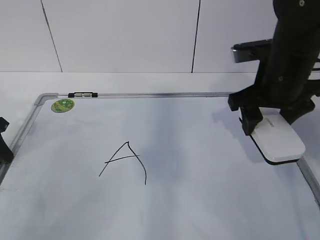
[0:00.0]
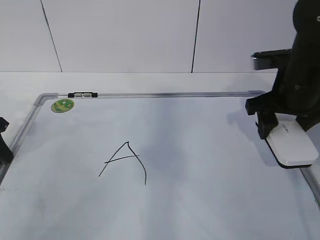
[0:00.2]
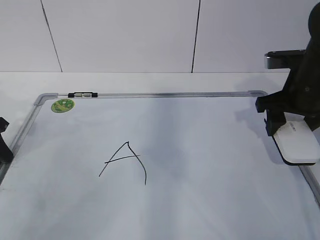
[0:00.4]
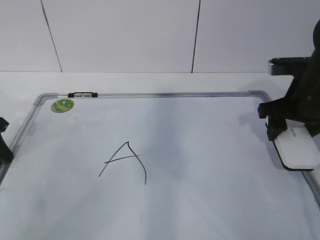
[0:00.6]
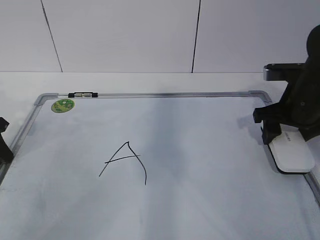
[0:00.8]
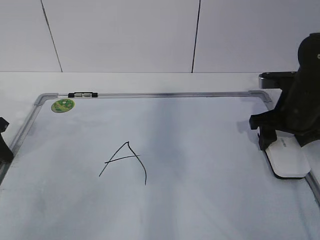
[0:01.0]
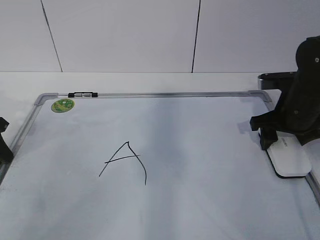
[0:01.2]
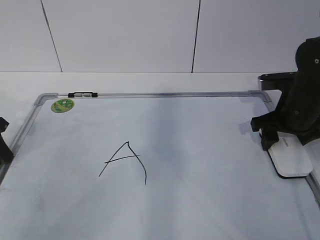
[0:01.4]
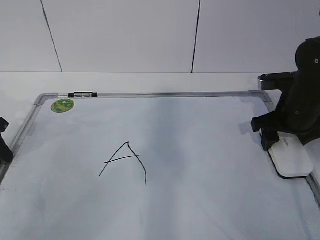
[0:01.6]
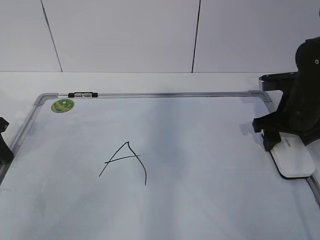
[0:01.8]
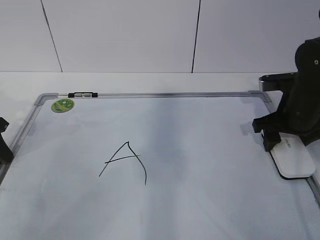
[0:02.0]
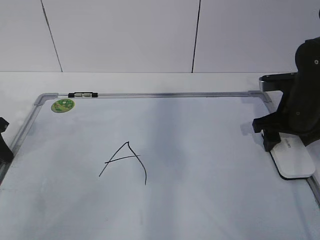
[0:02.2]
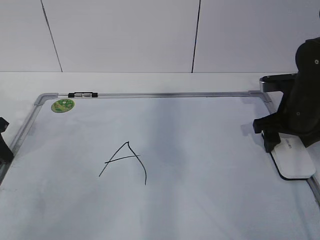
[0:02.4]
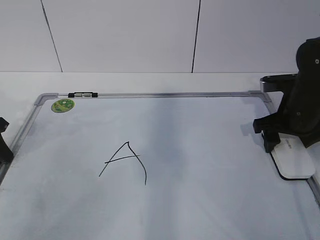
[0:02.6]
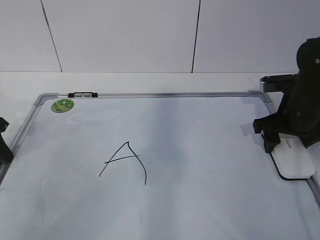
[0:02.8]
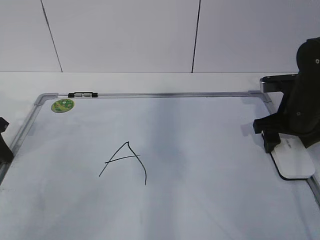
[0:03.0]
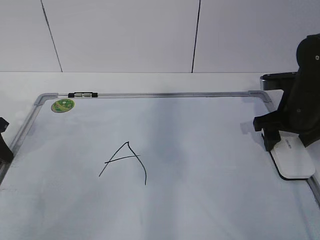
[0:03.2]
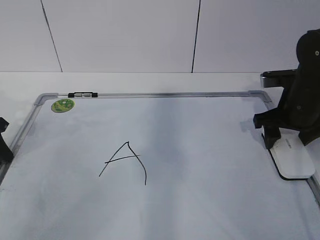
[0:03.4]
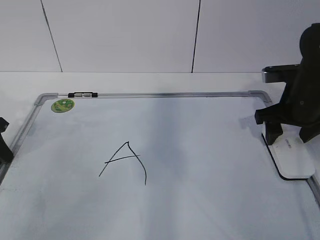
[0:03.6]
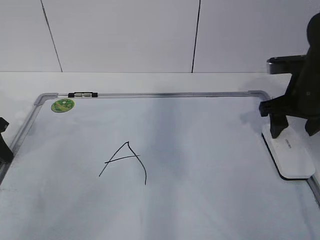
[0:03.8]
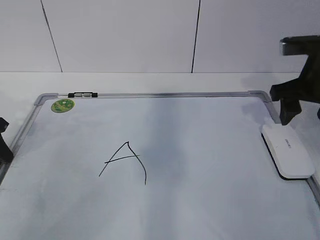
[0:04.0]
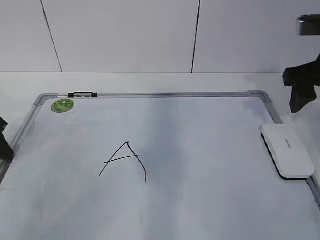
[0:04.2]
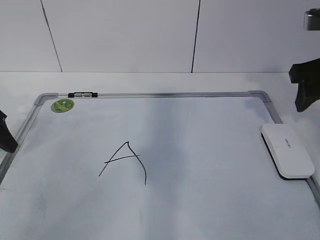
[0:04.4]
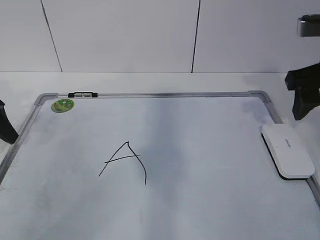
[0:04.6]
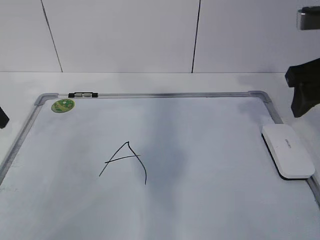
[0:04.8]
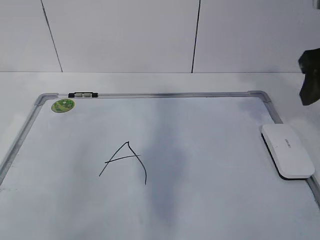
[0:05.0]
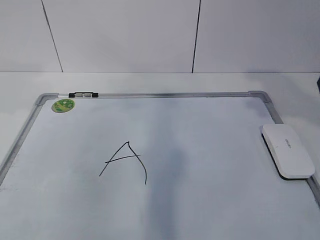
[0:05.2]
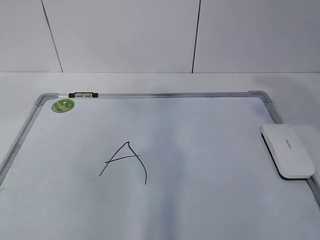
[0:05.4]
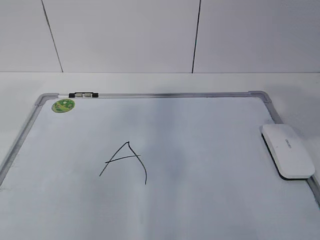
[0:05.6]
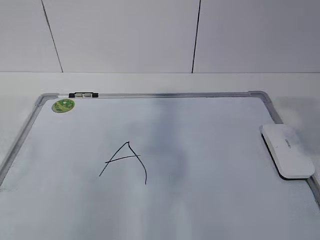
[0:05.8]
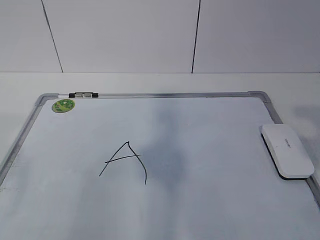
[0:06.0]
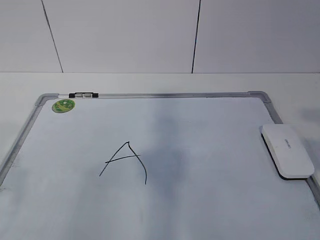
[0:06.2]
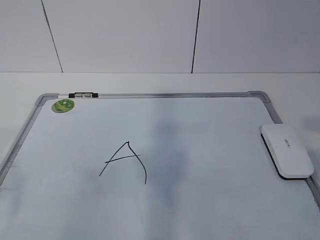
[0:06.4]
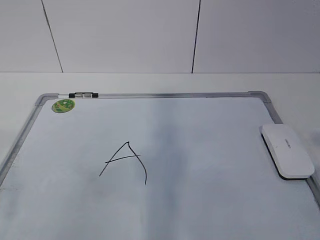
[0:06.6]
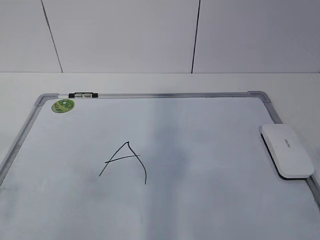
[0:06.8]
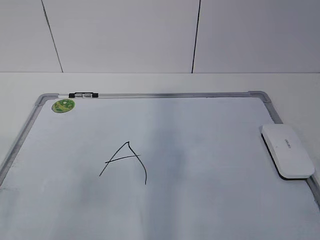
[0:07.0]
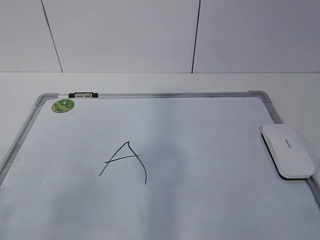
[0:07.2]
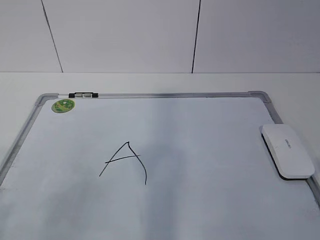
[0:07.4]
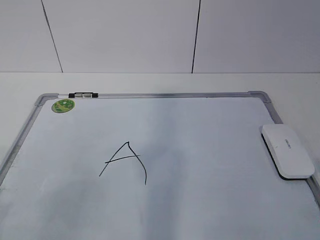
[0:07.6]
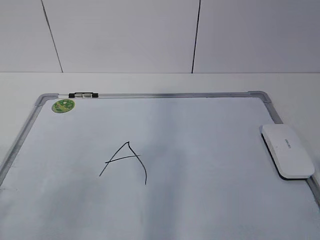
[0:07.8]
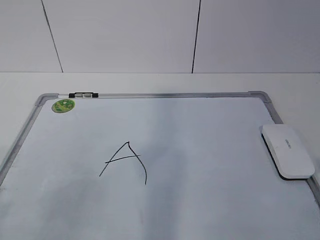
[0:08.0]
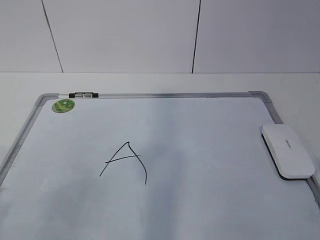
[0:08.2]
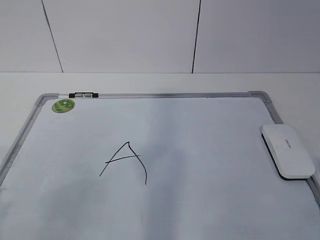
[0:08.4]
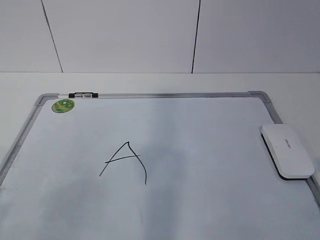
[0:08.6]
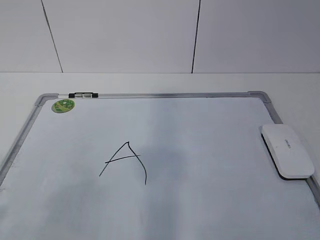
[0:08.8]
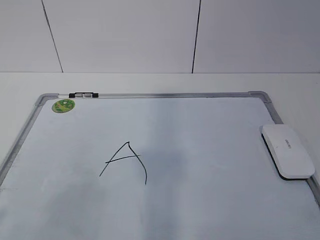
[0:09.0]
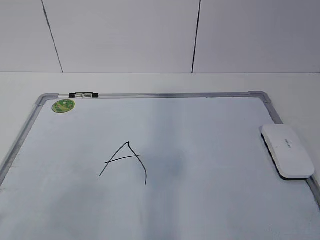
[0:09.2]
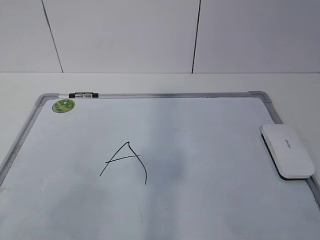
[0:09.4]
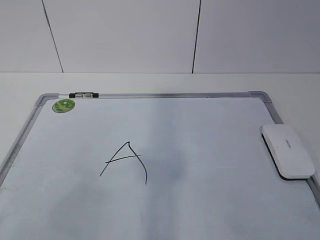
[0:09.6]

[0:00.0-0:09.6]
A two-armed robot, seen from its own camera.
Task of the whole recording: pick up the eraser on the blackboard and erase the letter "a".
0:00.0 to 0:01.6: The right gripper goes some 10 cm downward and to the right.
0:01.6 to 0:03.2: Neither gripper changes place.
0:03.2 to 0:04.8: The left gripper shifts some 10 cm upward, and opens its fingers. The right gripper moves upward and backward, roughly 15 cm.
0:04.8 to 0:06.4: The right gripper travels backward by approximately 25 cm.

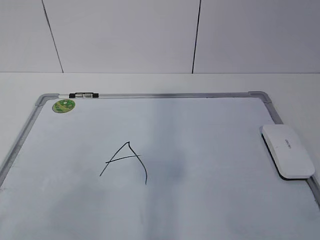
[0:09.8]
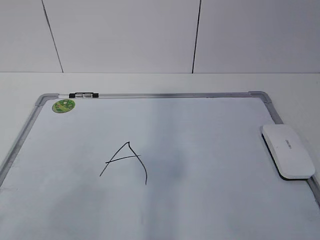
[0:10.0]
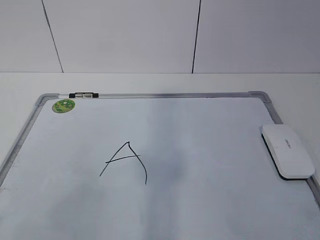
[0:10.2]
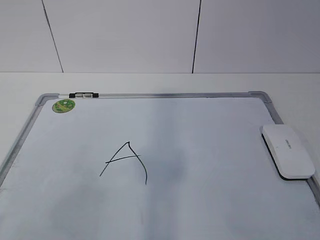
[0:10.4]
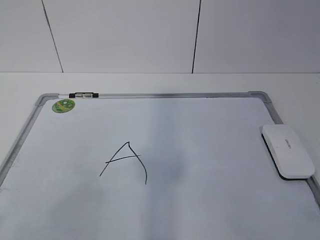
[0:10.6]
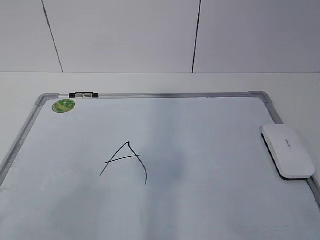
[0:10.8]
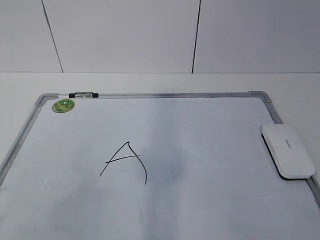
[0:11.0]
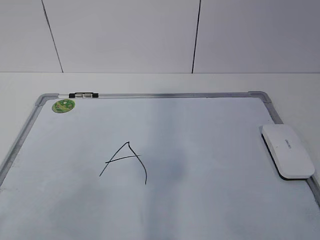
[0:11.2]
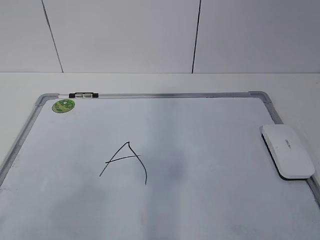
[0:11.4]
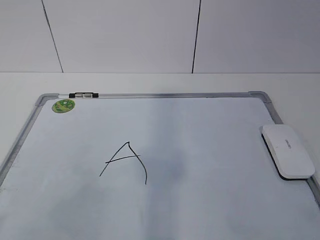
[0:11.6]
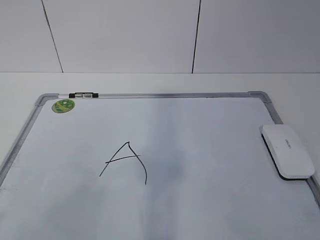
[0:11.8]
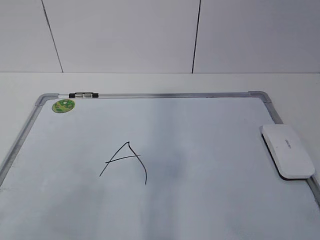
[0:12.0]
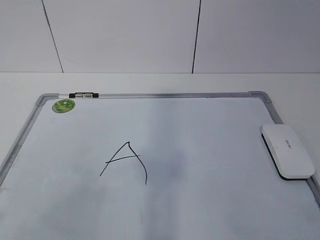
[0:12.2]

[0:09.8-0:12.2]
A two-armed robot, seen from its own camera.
Task of the whole recording: pick up the eraser on the blackboard and erase the letter "a".
0:09.8 to 0:12.2: Both grippers stay about where they are.

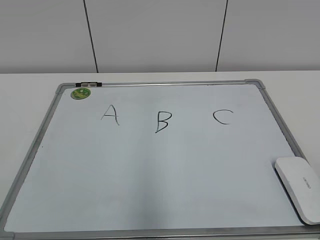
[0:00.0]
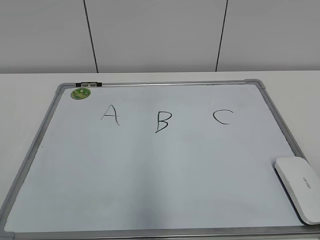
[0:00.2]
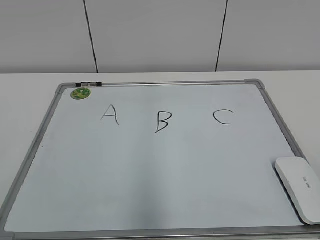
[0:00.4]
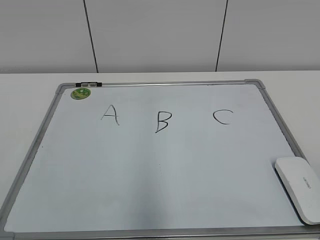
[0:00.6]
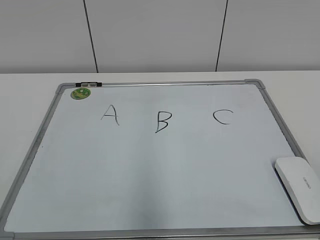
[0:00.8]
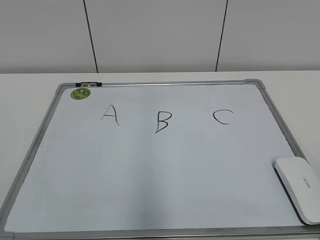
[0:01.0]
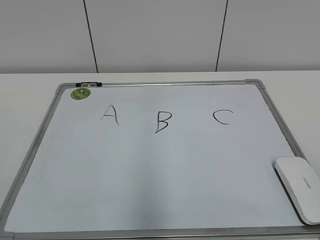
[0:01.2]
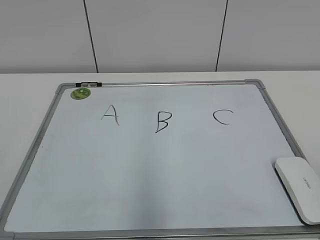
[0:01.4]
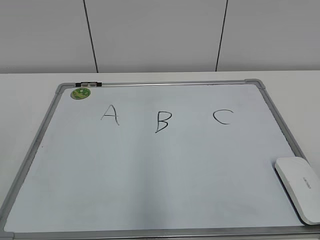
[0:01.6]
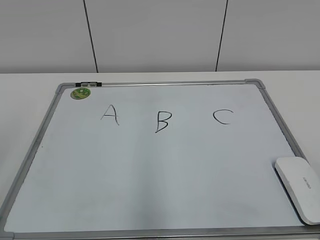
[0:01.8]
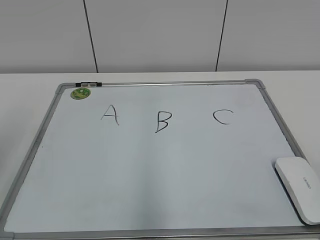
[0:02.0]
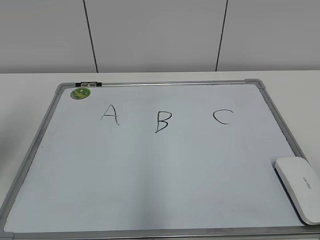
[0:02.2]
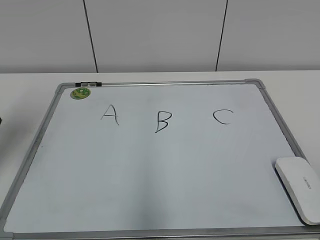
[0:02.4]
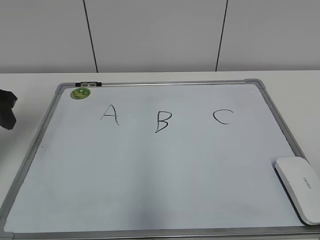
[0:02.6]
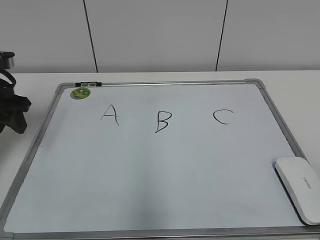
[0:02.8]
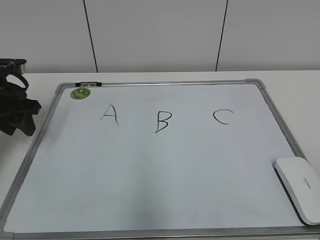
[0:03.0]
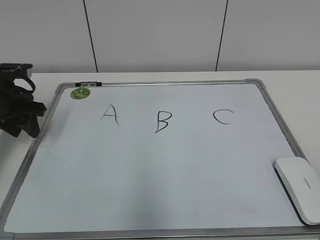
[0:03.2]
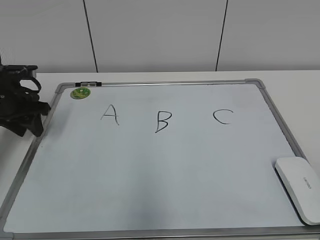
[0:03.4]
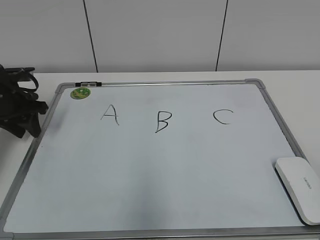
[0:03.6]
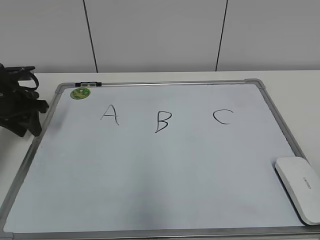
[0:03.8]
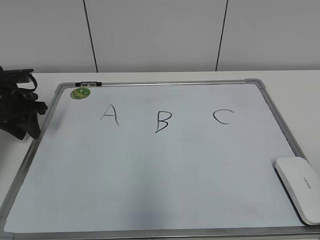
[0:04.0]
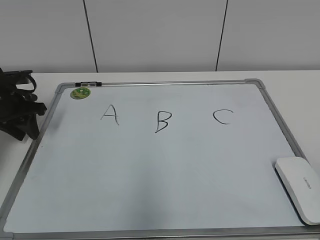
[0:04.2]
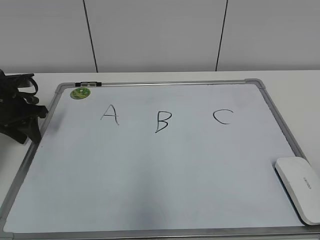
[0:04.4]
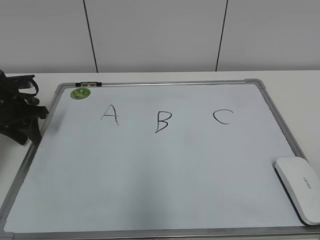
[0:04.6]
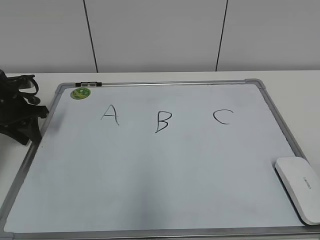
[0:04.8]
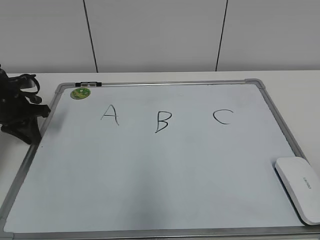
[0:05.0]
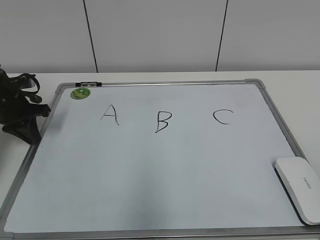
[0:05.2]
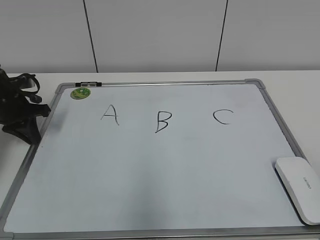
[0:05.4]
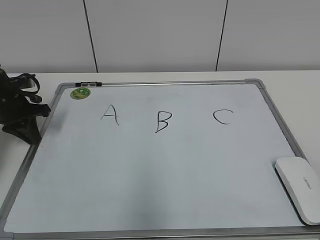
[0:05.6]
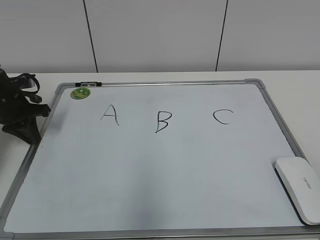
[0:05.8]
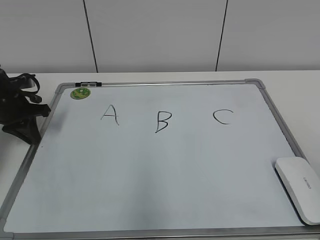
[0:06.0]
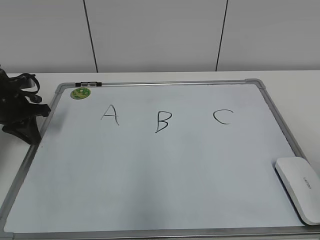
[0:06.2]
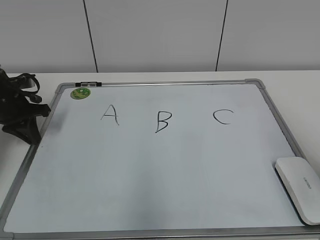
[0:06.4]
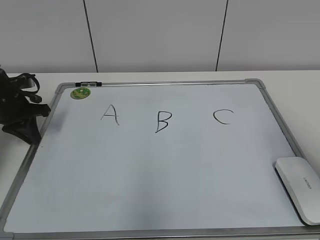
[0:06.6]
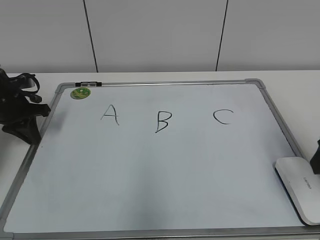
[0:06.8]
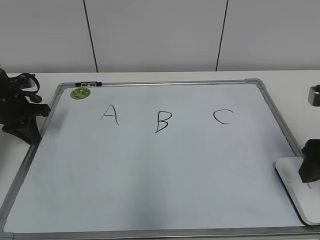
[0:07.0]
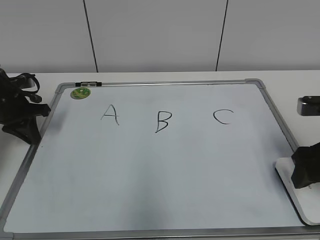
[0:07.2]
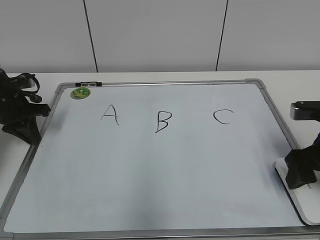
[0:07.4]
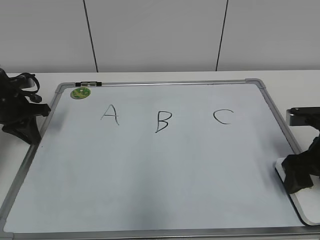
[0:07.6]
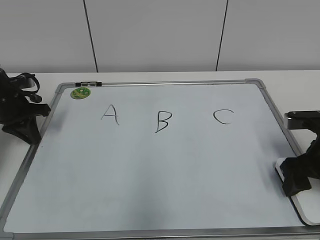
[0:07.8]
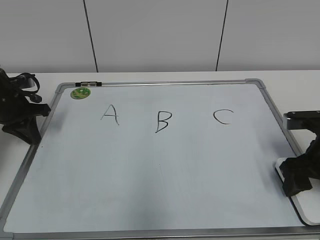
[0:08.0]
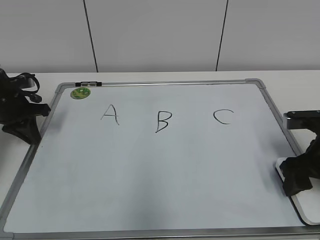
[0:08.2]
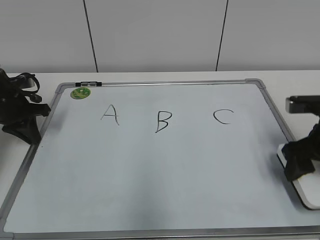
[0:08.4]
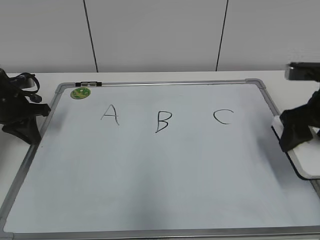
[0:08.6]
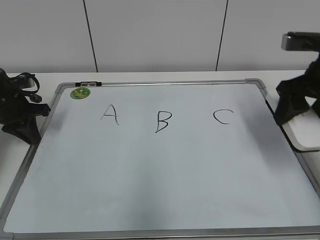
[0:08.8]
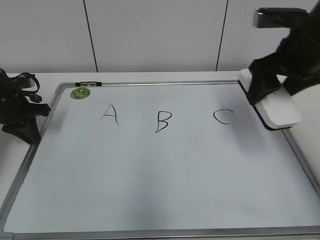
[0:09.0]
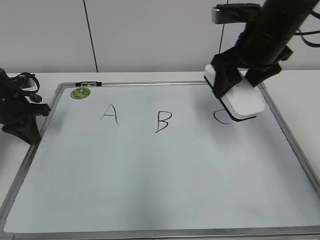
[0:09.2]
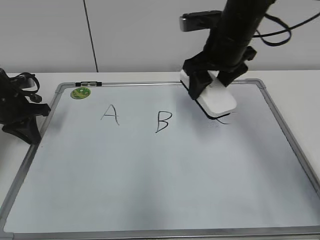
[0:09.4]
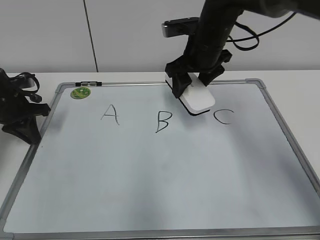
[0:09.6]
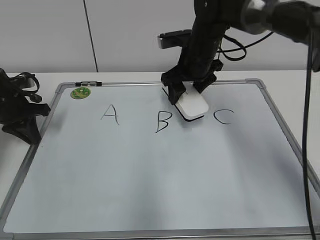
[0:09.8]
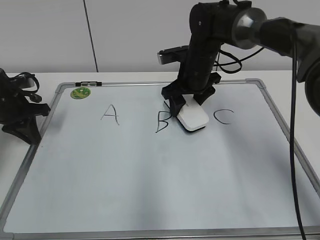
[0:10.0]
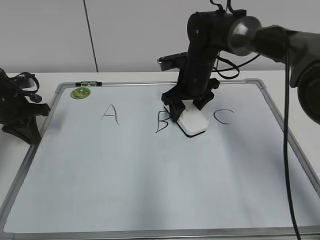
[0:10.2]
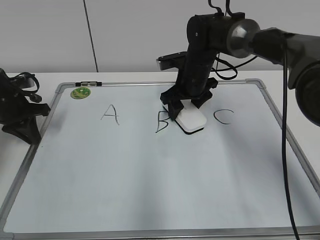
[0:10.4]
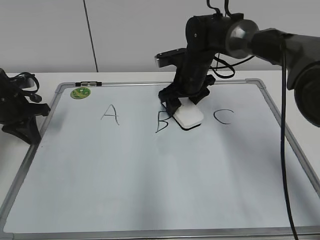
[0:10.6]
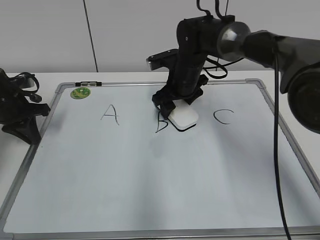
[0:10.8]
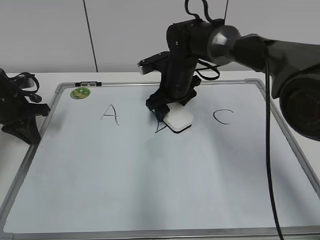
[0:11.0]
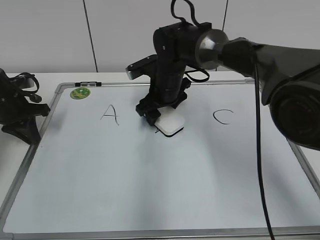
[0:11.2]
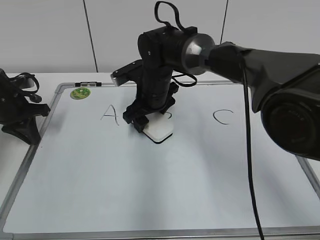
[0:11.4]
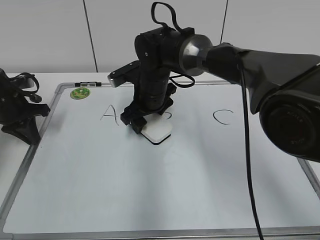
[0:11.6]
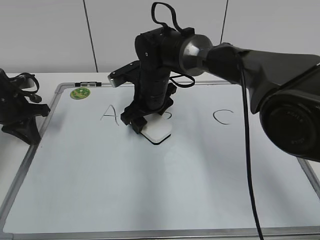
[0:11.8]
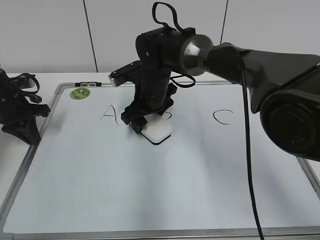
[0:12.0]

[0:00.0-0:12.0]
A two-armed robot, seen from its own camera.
Task of the whole recording: pick up the eraser on the blackboard and erase the letter "B".
Step, 0:00.0 to 0:05.0: Hold the drawing board steady with your left hand.
Step, 0:05.2 to 0:08.2: Grab the eraser with your right hand.
0:01.6 to 0:03.0: The left gripper moves forward, roughly 35 cm.
0:03.0 to 0:04.4: The left gripper ends up about 5 cm from where it was.
0:04.4 to 0:06.0: The left gripper closes.
0:06.0 to 0:07.6: The right gripper shifts roughly 30 cm forward and downward.
0:07.6 to 0:09.0: The right gripper heads upward, forward and to the left, covering roughly 15 cm.
0:09.0 to 0:10.4: The right gripper heads forward, to the left and downward, covering about 25 cm.
0:10.4 to 0:12.0: The right gripper heads to the left, covering about 10 cm.
